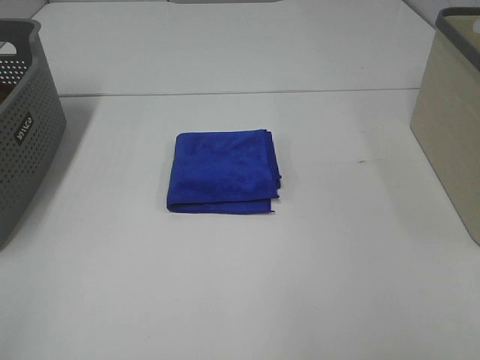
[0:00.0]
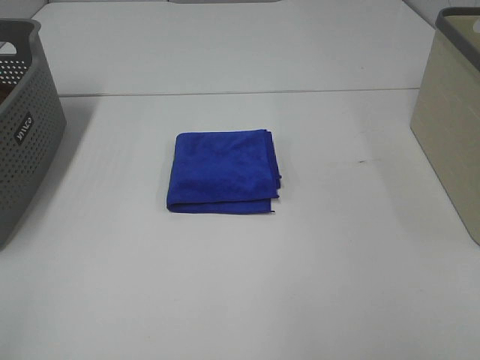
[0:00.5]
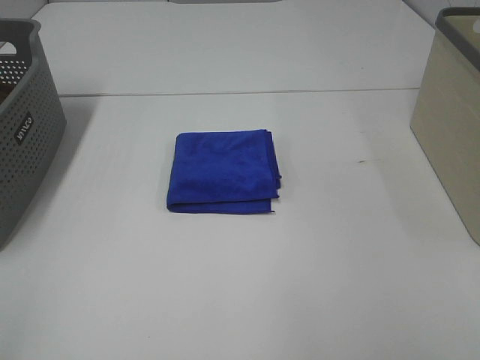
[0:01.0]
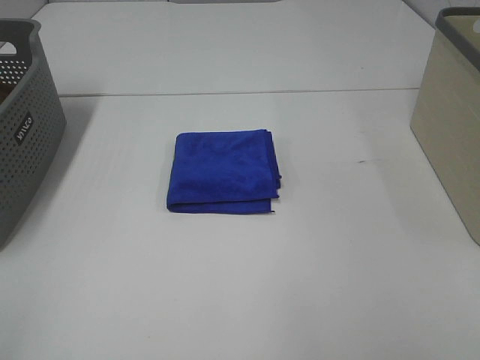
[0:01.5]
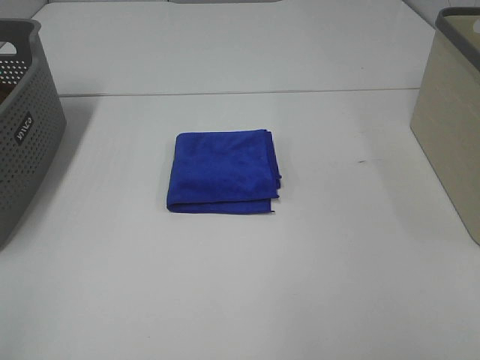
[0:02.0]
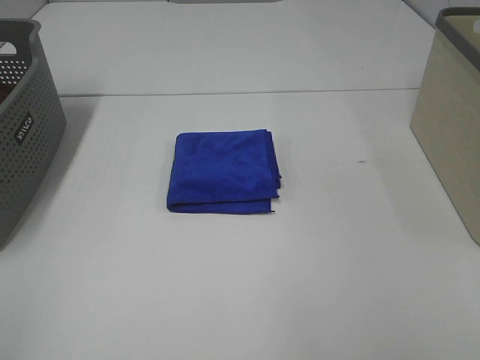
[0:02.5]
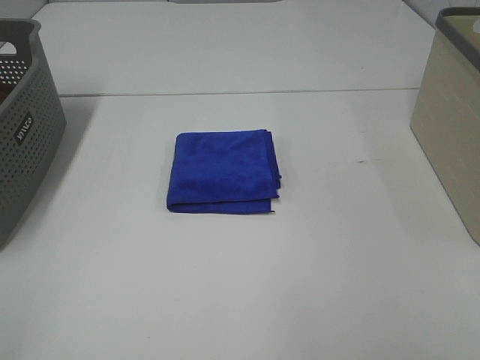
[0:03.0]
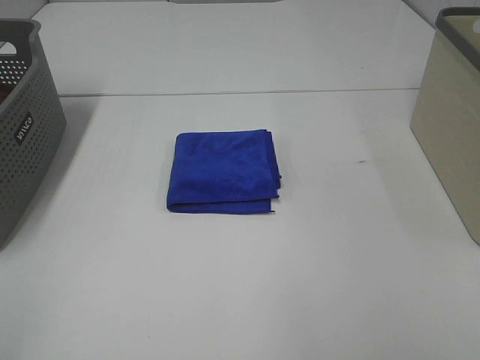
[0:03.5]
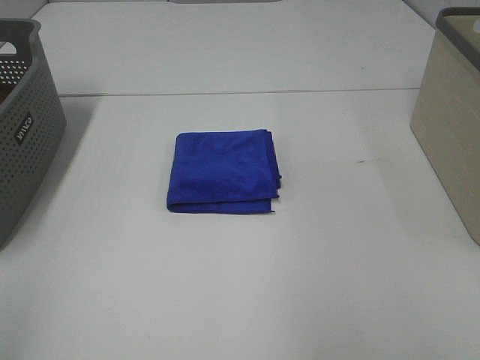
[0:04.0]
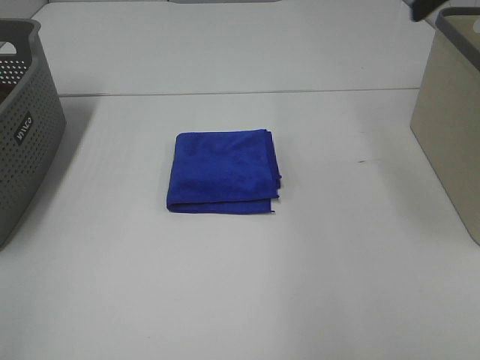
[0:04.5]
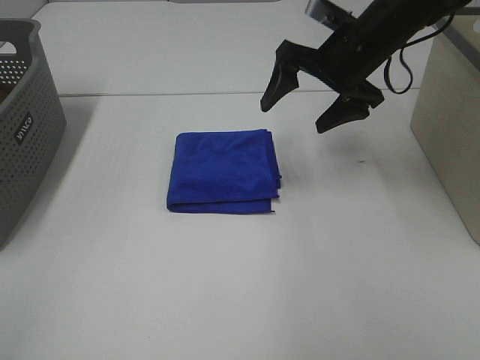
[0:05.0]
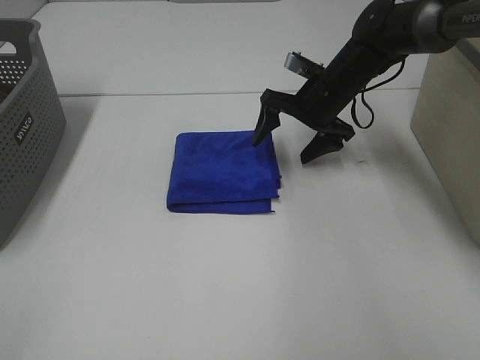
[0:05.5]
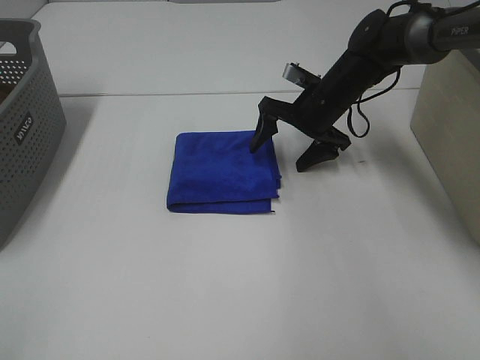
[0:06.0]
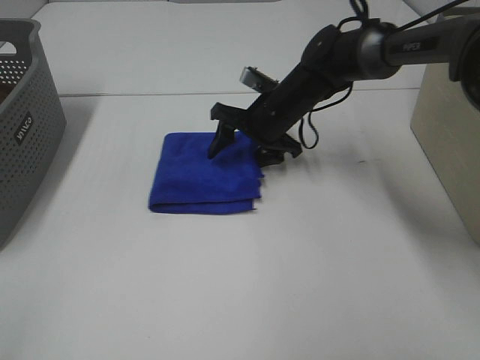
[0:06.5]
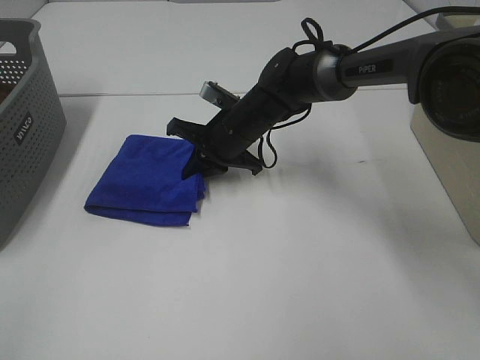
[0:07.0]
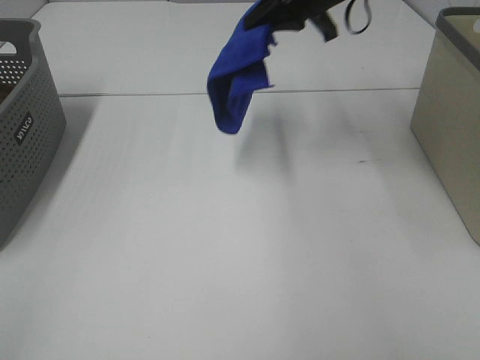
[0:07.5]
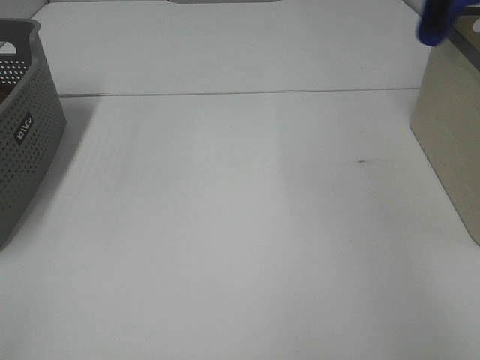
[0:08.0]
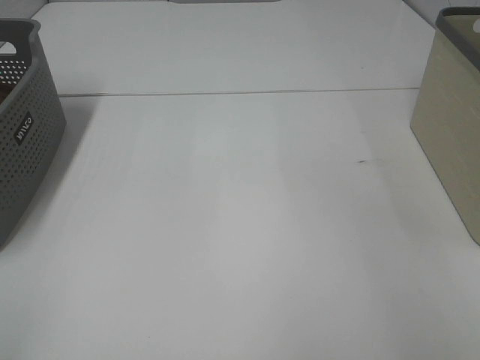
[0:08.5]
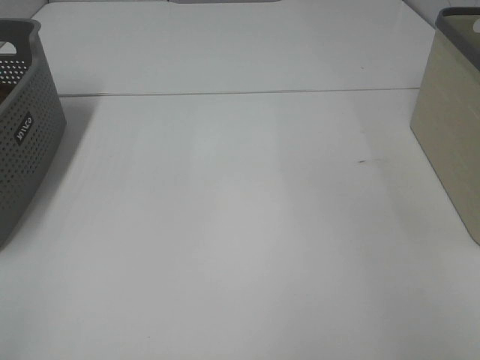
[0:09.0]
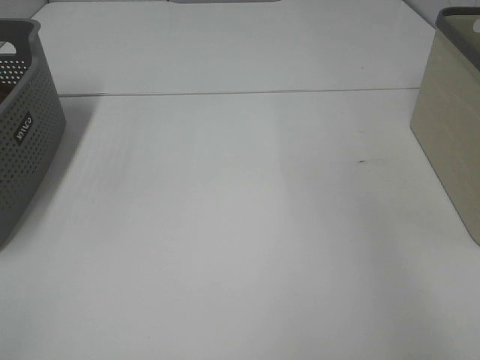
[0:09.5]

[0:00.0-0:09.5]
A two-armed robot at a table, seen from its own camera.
Step, 0:00.0 to 0:06.5: Right hand: grab the folded blue towel.
Step, 0:07.0 to 0:09.0: Right hand: place the blue towel in right basket.
0:00.0 to 0:02.0: The two grippers keep their place.
0:04.0 to 0:05.5: The right gripper travels forward, downward and to the left by approximately 40 cm.
0:05.5 to 0:07.5: The right gripper travels upward by approximately 15 cm, and closes up.
0:07.5 to 0:09.5: The right gripper heads to the right, covering about 25 cm, and opens.

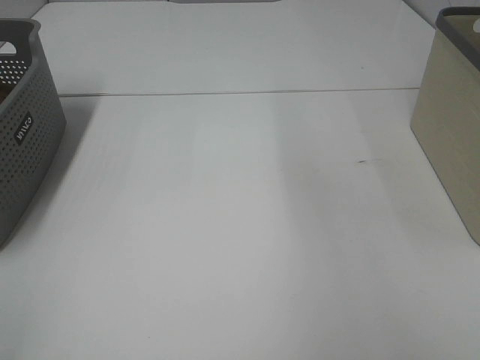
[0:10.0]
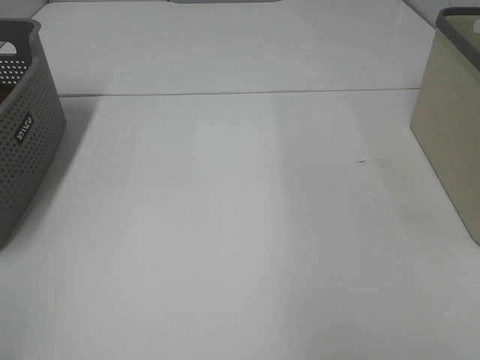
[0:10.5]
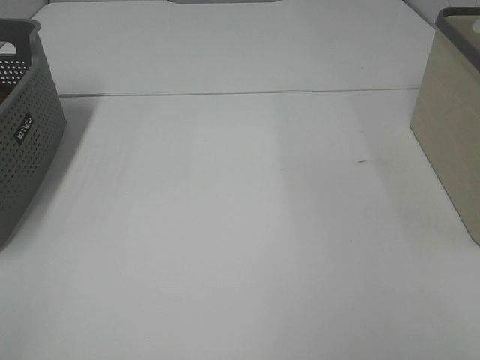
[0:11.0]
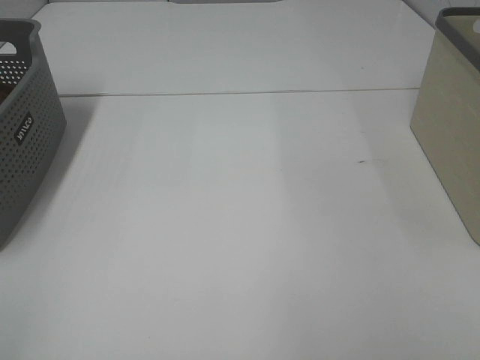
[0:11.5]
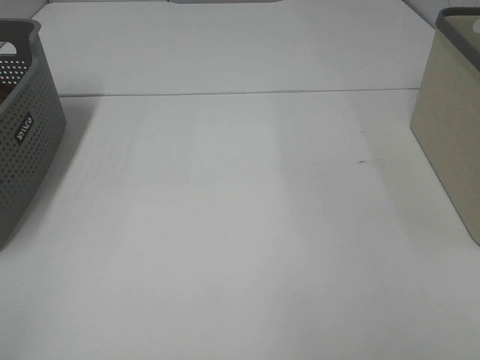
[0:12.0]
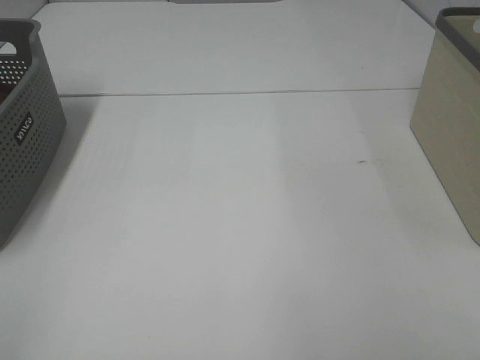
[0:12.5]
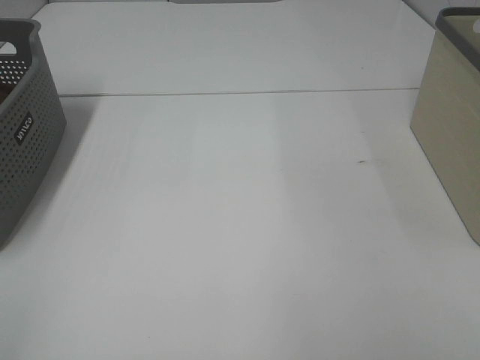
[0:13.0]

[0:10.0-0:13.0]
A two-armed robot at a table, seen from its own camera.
0:11.5 to 0:13.0: Both grippers stay put.

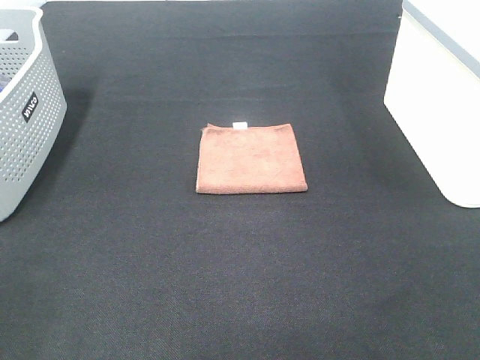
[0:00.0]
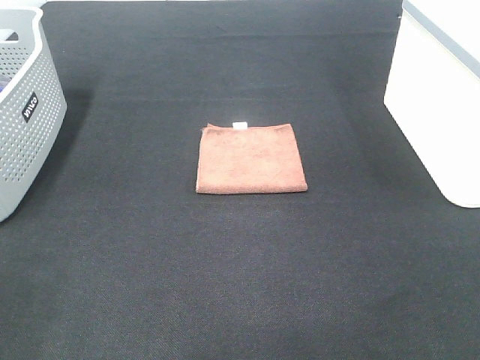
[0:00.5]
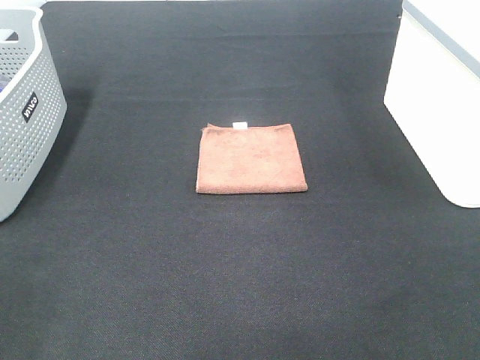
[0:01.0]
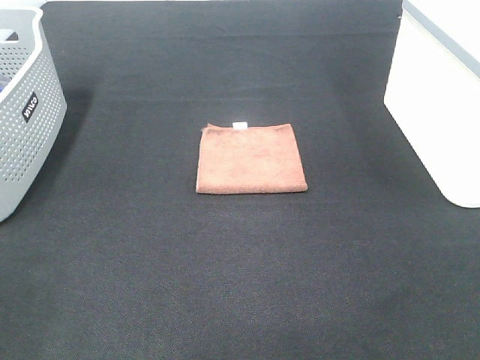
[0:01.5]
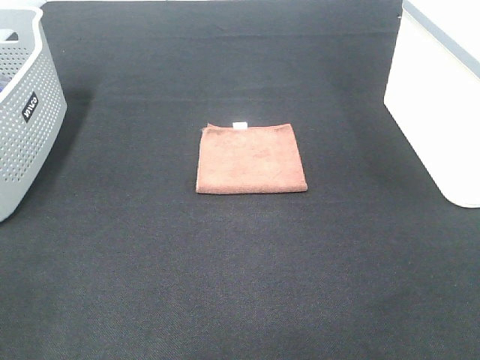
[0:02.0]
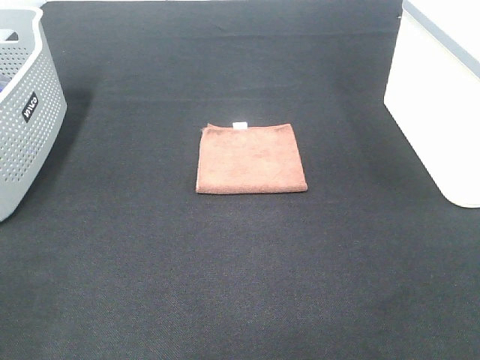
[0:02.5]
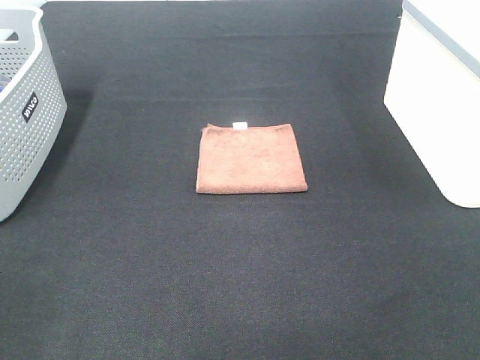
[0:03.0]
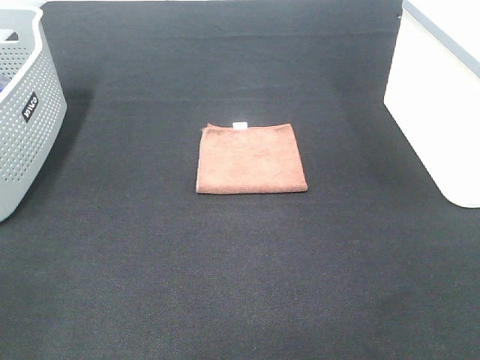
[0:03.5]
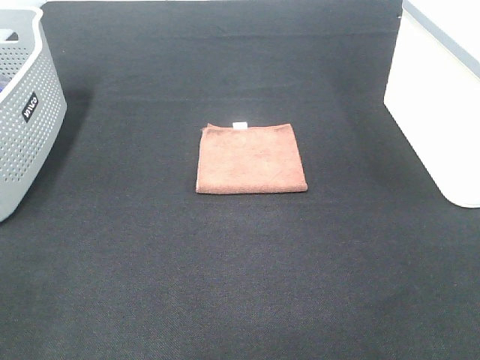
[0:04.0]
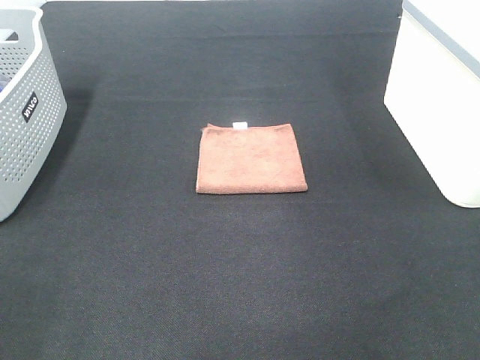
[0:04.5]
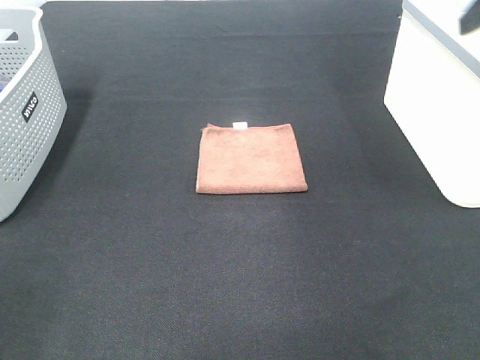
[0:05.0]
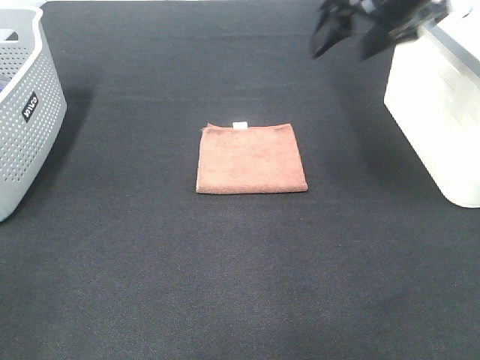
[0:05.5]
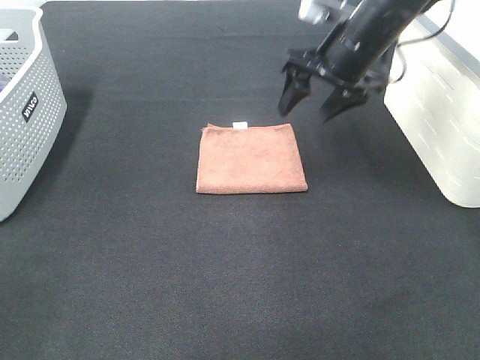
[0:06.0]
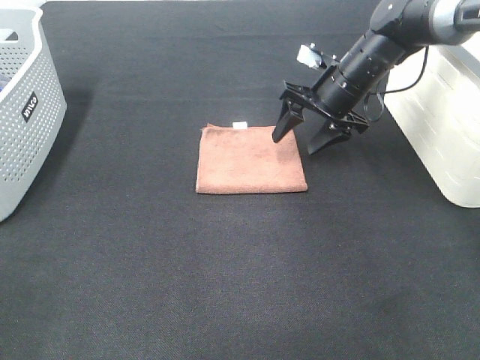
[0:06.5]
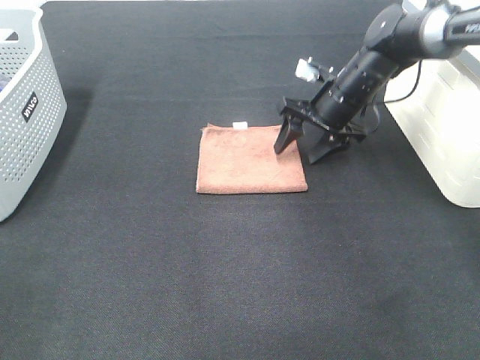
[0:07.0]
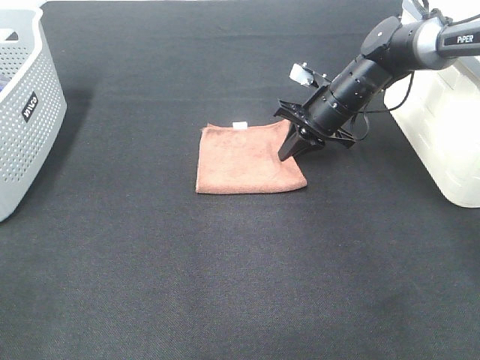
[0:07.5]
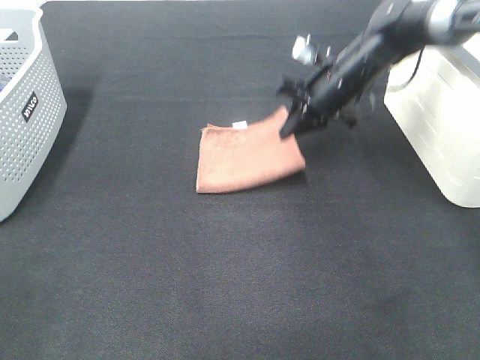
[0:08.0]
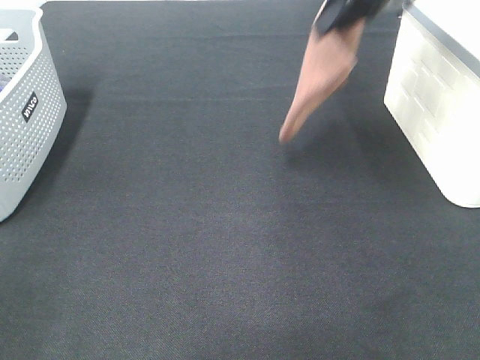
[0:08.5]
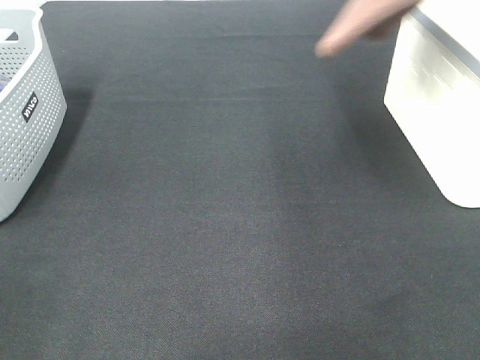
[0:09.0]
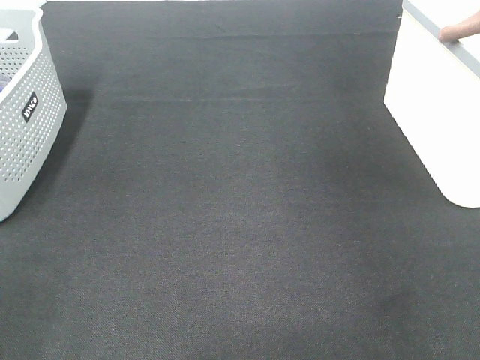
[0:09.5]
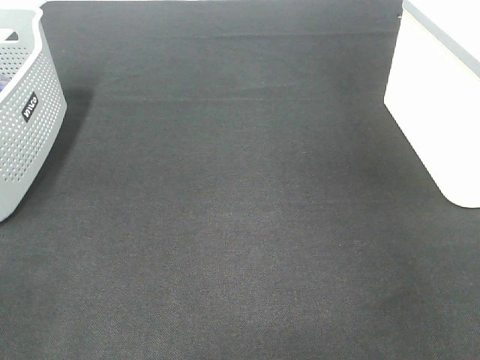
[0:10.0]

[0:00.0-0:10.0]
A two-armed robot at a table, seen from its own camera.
Step, 0:00.0 to 0:07.5: Right hand: grab the folded brown towel.
0:00.0 to 0:02.0: Both grippers stay about where they are.
0:04.0 to 0:06.0: The right gripper goes approximately 40 cm forward.
0:06.0 to 0:08.0: The right gripper heads downward, covering some 5 cm, and closes up.
0:08.0 to 0:10.0: The right gripper shifts about 30 cm to the right and upward.

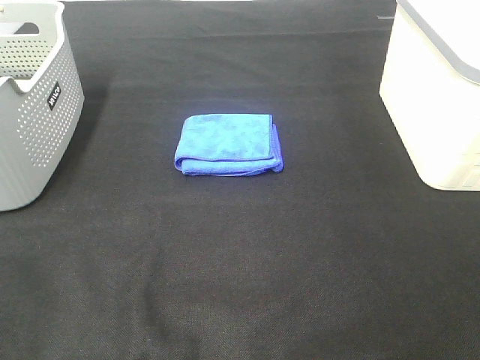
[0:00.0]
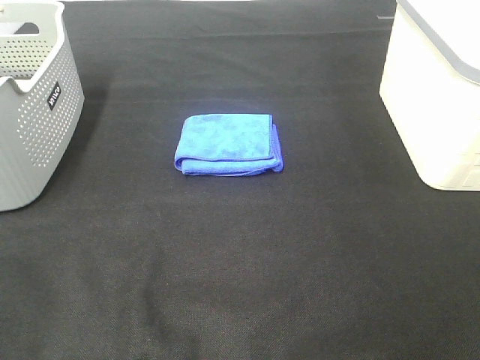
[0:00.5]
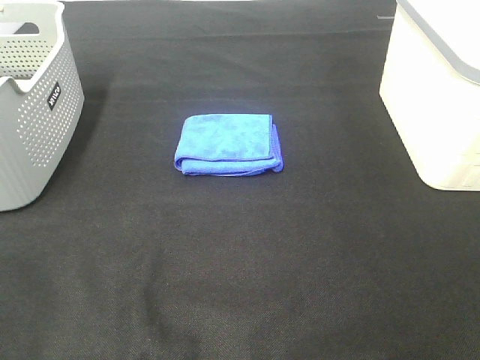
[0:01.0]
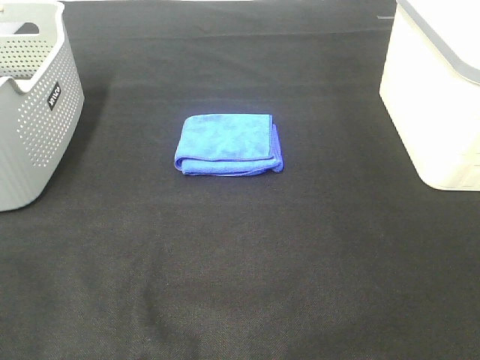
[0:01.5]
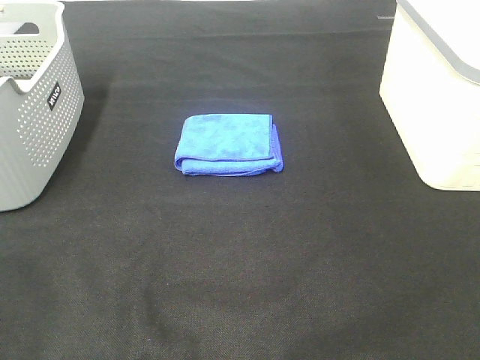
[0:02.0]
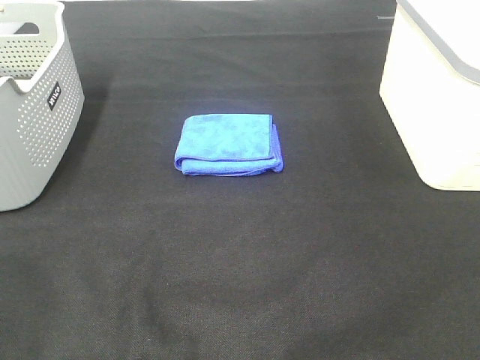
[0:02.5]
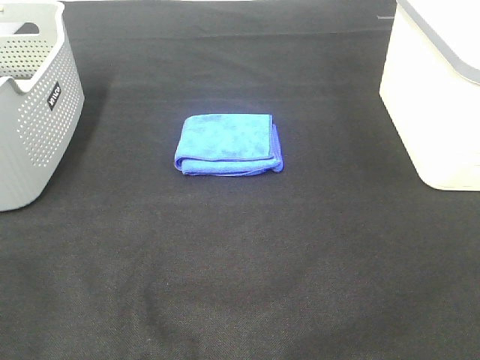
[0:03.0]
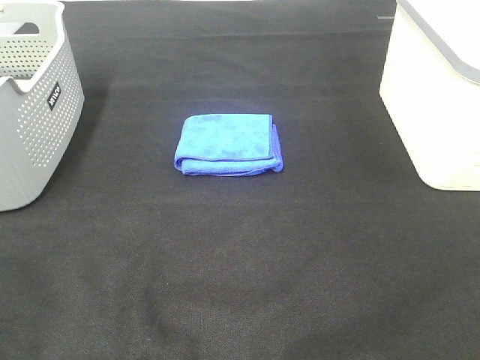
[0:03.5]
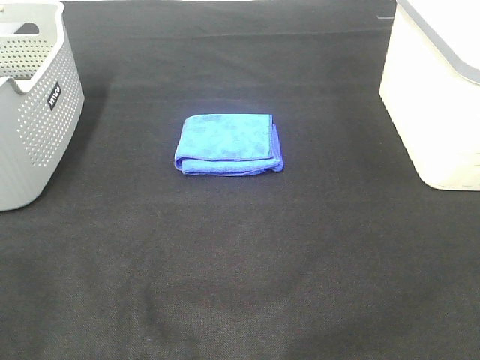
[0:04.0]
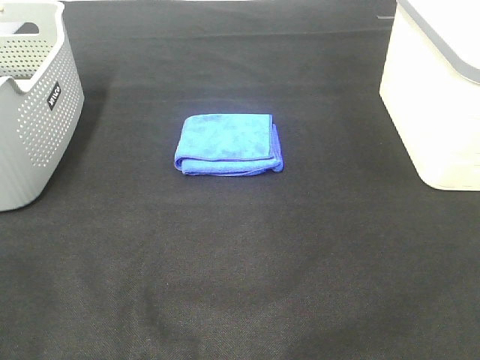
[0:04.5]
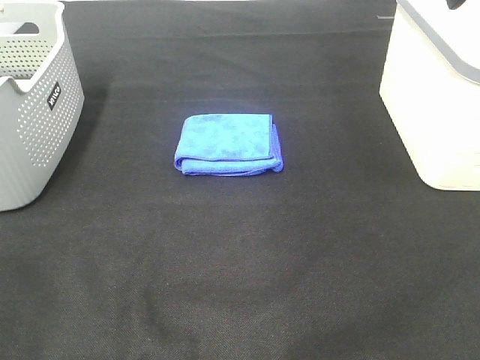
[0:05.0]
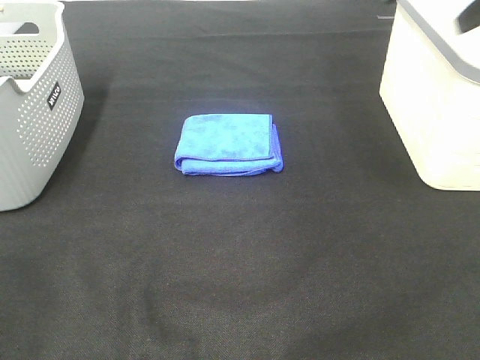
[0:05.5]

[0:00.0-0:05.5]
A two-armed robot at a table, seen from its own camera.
0:00.0 to 0:03.5: Both grippers stay about where they are.
0:03.5 to 0:05.5: The right gripper is displaced forward by roughly 35 cm.
